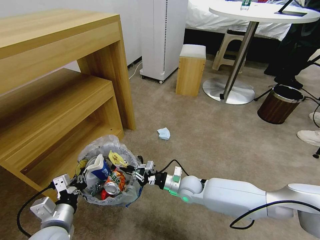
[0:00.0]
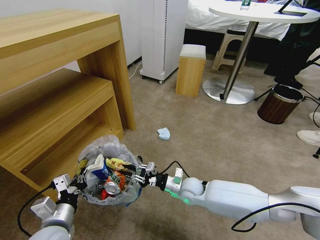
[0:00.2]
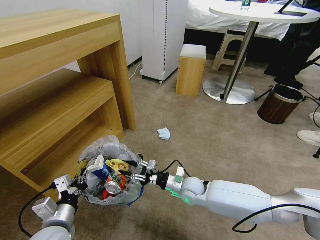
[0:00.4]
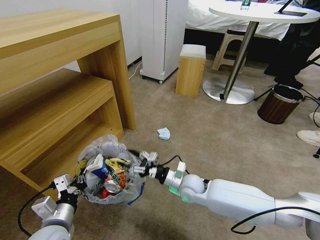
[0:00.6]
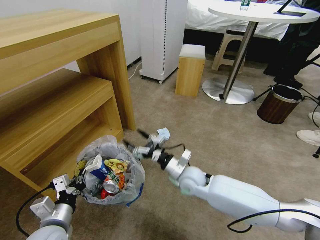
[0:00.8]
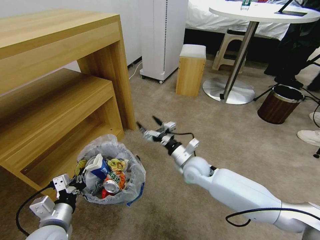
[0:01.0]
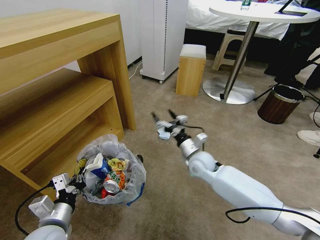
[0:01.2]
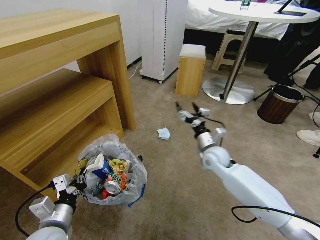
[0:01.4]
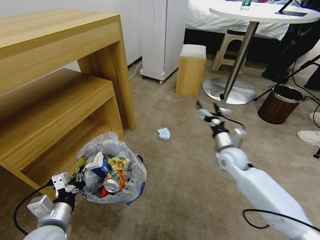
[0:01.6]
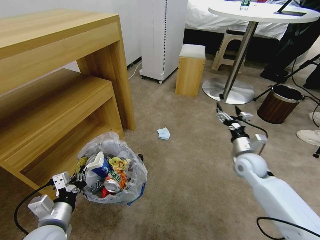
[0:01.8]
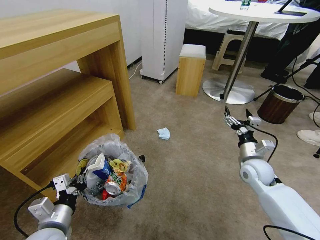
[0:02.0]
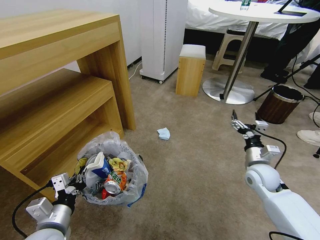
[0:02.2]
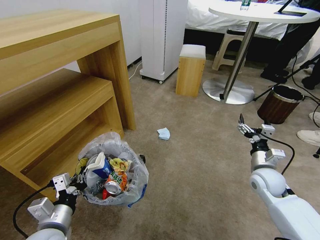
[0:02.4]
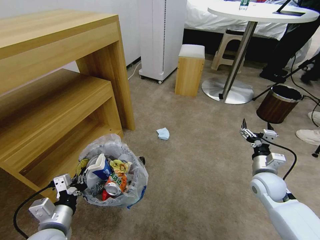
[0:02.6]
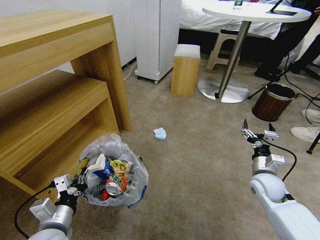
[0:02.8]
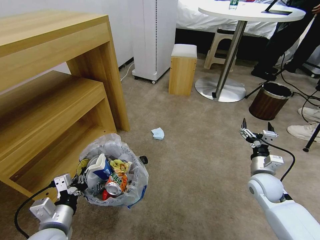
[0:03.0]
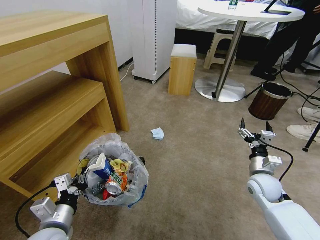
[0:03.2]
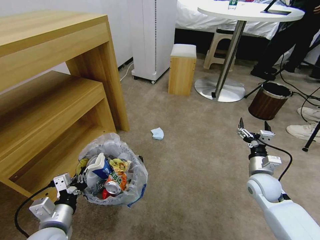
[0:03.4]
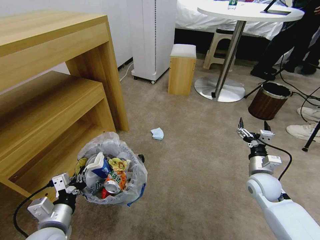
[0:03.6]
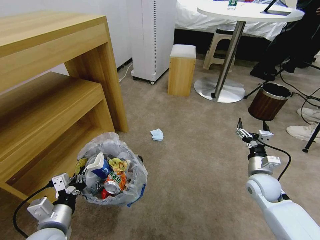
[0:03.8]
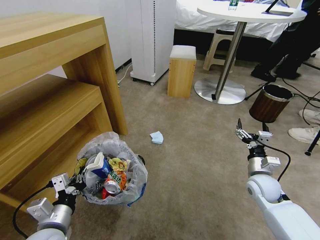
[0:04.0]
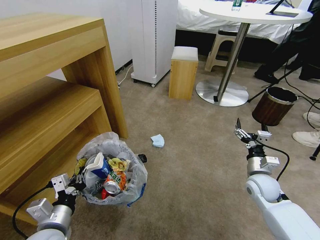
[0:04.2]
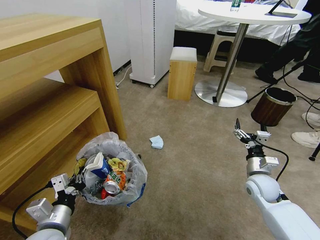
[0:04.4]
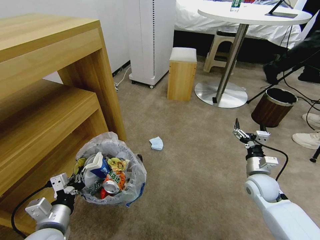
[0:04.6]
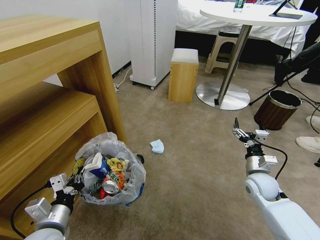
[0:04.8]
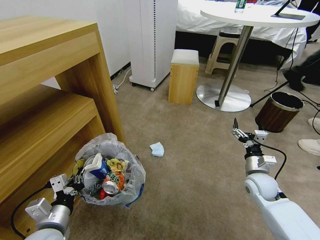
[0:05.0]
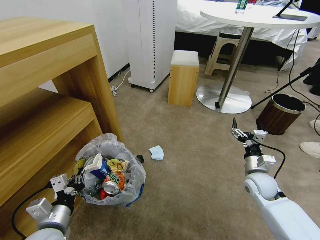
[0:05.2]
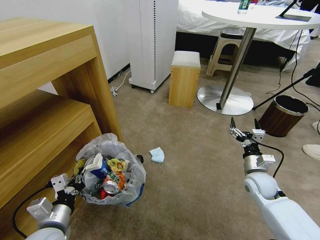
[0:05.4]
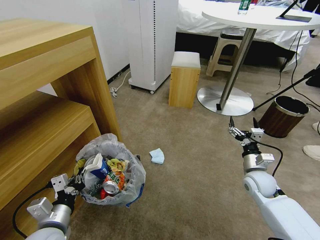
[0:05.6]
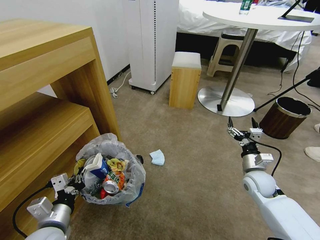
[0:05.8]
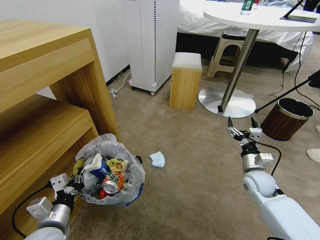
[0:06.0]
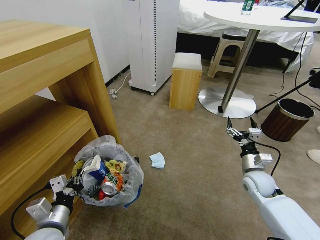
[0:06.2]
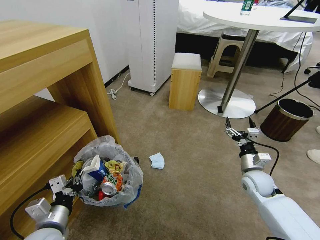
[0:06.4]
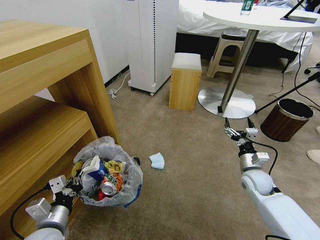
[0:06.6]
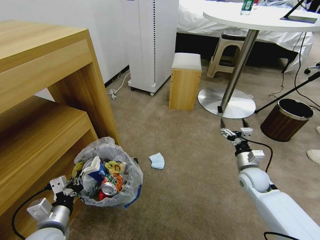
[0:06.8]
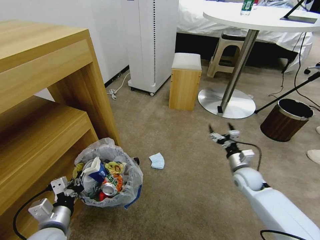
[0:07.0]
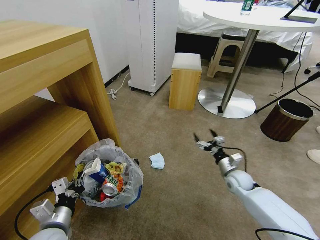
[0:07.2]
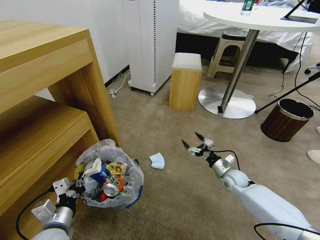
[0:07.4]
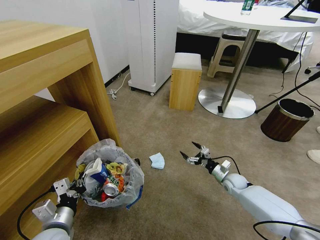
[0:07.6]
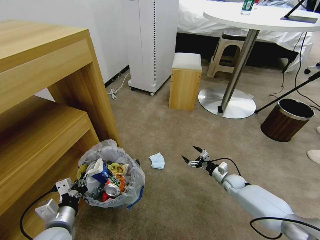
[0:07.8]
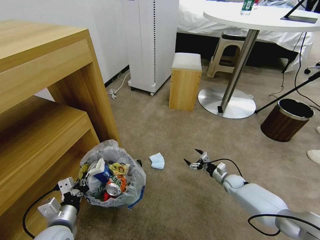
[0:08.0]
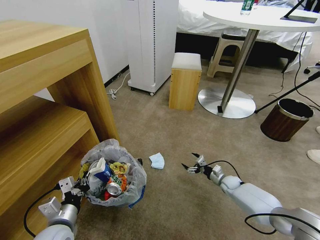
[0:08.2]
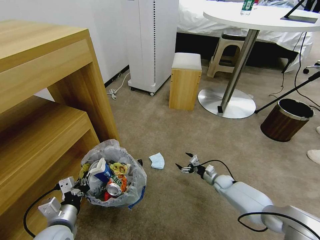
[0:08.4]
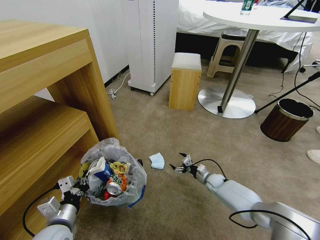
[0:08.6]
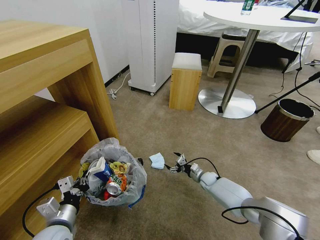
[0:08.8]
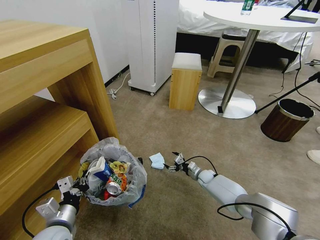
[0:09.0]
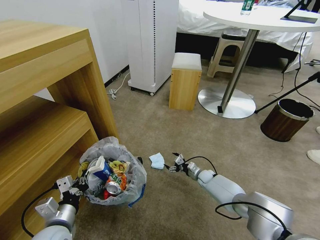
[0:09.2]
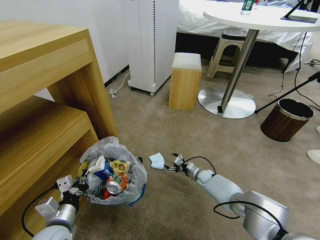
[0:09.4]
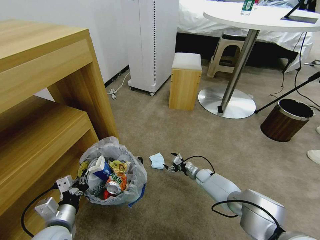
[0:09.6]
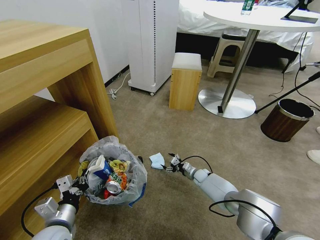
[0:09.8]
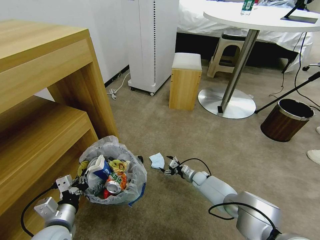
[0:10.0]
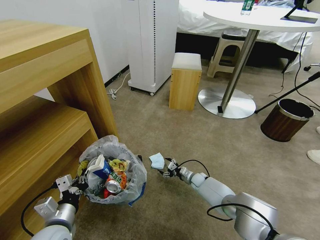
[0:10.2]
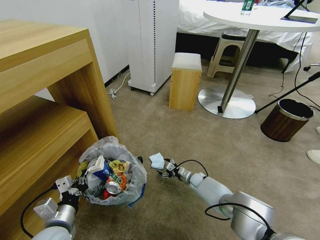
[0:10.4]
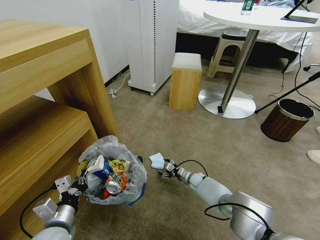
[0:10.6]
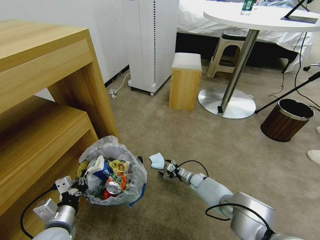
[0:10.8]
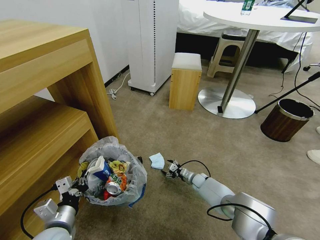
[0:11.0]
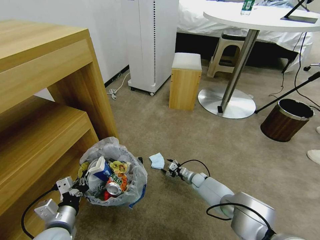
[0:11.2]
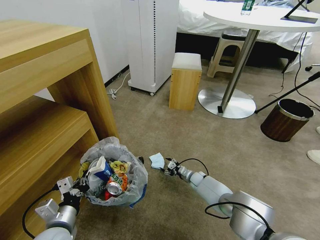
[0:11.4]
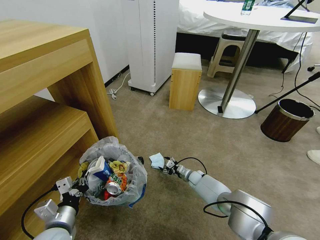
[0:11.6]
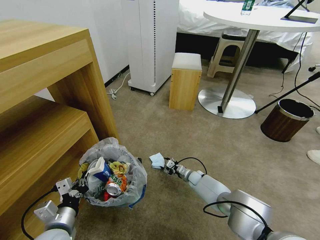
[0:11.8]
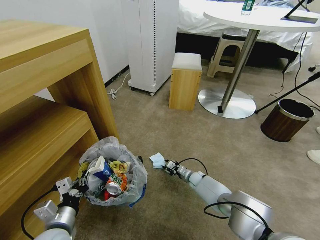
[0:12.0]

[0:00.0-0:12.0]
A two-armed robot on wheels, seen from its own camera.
Task of the whole recording: Pick up the trash bin and place the garbage on the floor into it.
0:00.0 to 0:01.6: The right gripper goes roughly 20 cm to the right and upward, and opens up.
0:01.6 to 0:03.0: The right gripper moves backward and to the right, approximately 10 cm.
0:06.0 to 0:07.6: The right gripper goes about 15 cm downward and forward.
0:07.6 to 0:09.0: The right gripper is displaced to the left, downward and forward by roughly 15 cm.
0:09.0 to 0:10.4: The grippers stay close to where they were, moving slightly.
0:10.4 to 0:12.0: The right gripper closes up.

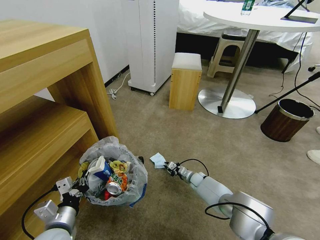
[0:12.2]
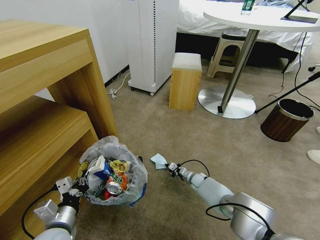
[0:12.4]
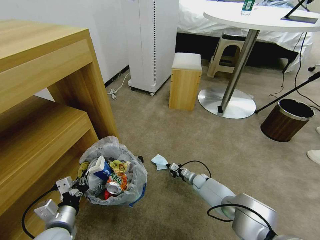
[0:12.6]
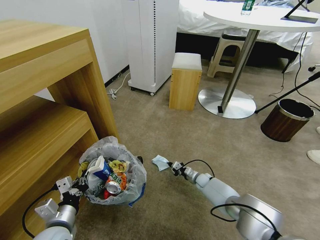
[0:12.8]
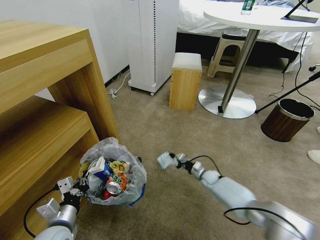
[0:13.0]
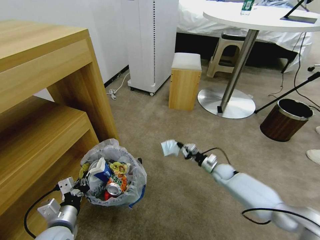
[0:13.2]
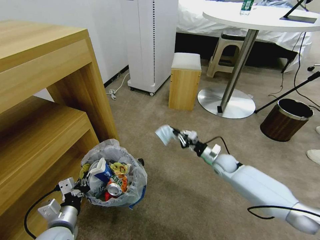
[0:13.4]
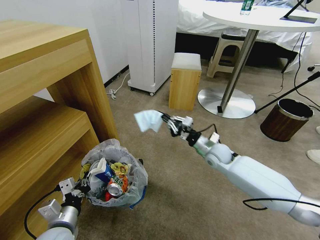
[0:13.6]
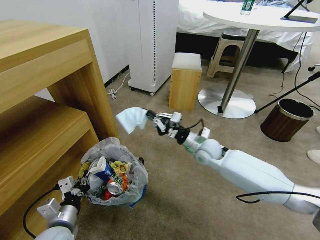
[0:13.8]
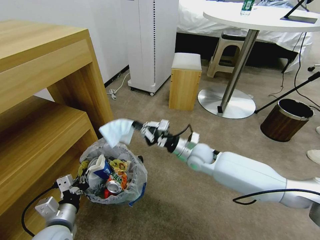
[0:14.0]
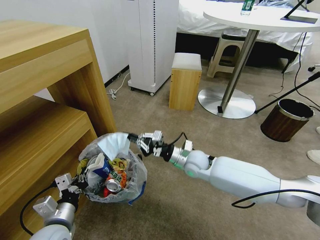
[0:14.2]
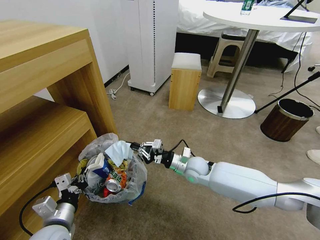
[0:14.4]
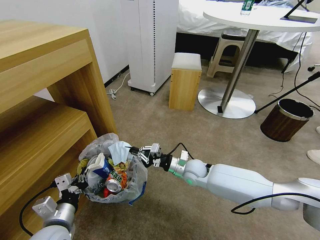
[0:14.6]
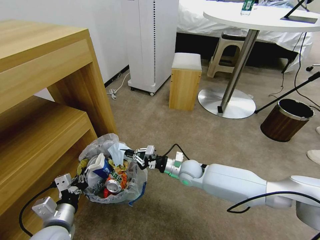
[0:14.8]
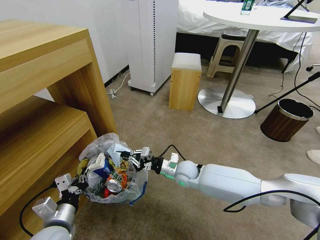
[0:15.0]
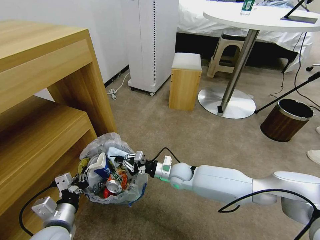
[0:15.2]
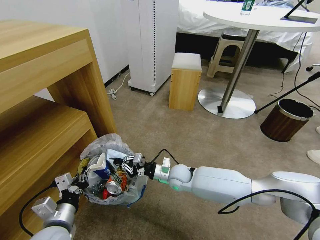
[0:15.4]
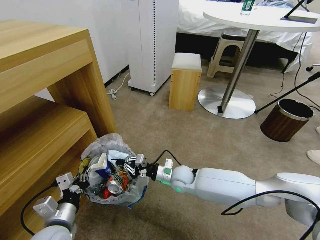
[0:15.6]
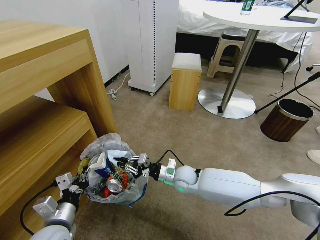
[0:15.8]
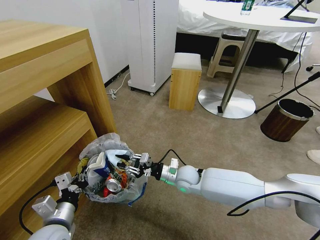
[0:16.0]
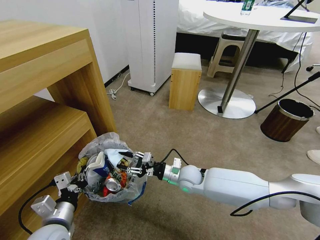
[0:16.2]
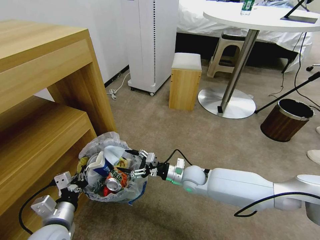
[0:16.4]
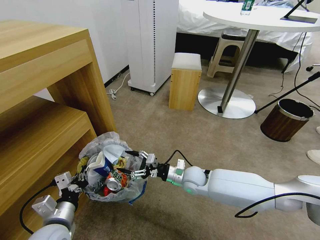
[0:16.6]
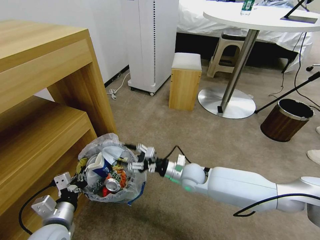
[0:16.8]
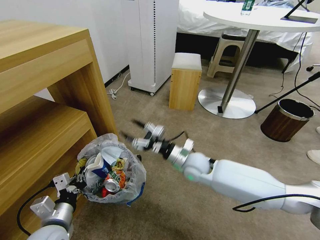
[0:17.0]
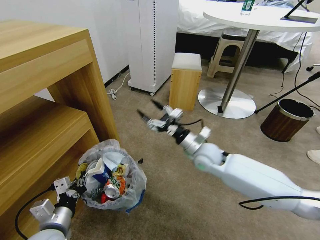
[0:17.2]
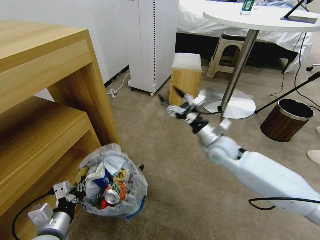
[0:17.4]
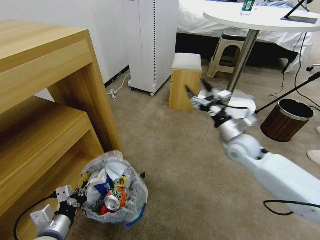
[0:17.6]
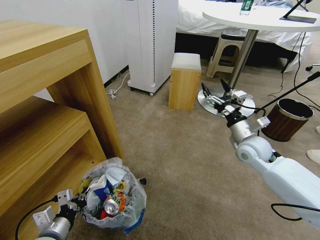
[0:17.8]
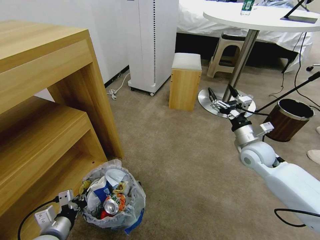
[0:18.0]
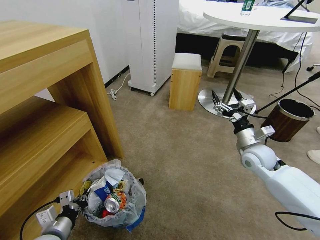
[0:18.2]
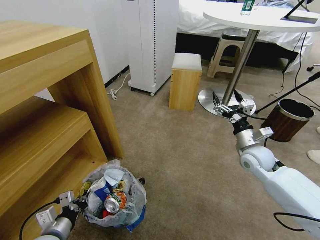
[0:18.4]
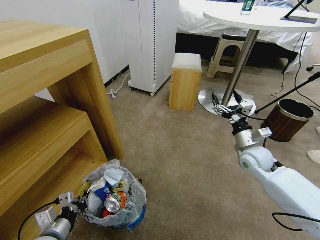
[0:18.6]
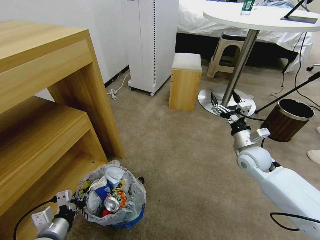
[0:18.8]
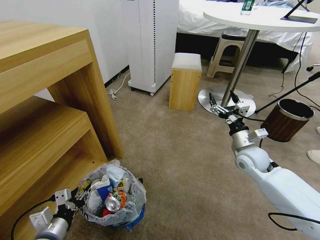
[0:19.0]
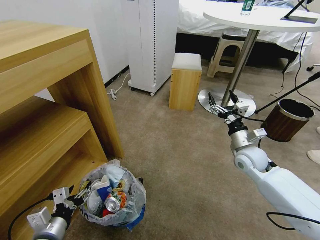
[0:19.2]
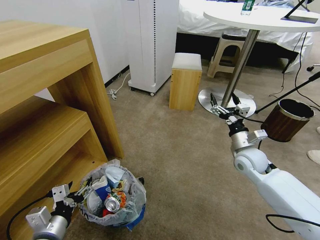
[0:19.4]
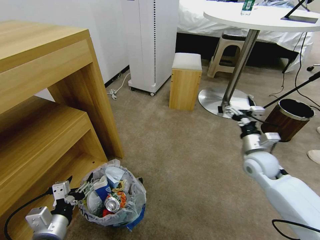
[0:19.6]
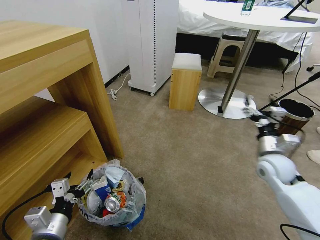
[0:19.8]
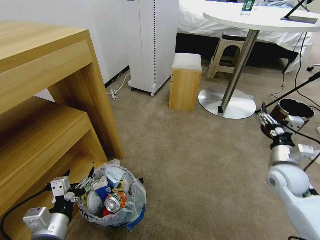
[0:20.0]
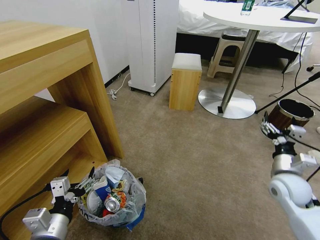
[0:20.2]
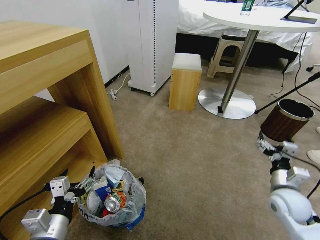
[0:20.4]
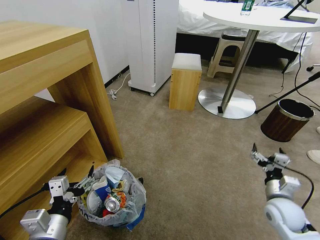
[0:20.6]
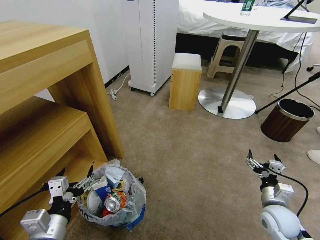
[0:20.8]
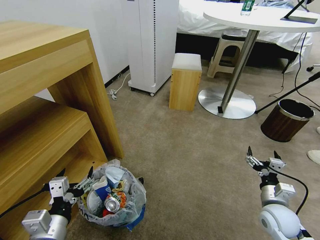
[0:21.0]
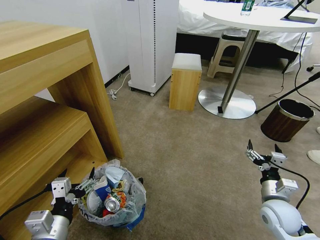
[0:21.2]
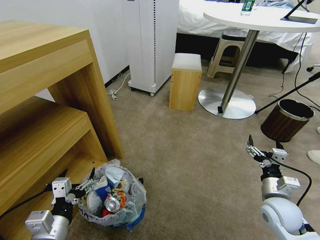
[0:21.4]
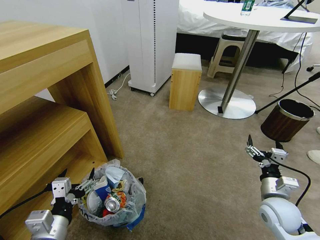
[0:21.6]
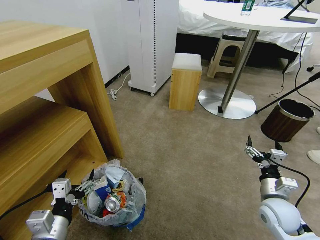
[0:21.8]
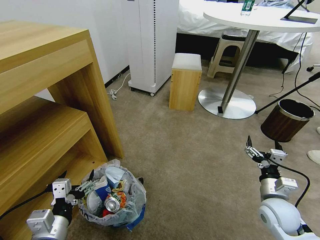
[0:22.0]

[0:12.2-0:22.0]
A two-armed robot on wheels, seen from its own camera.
Task of the whole recording: Pick up the trash bin and place the garbage on the floor into it.
0:12.2 to 0:13.6: The right gripper is displaced upward by approximately 25 cm.
0:13.6 to 0:15.0: The right gripper is displaced to the left and downward by about 15 cm.
0:15.0 to 0:16.4: The right gripper opens.
0:16.4 to 0:17.8: The right gripper travels to the right and upward by about 25 cm.
0:17.8 to 0:19.2: The left gripper opens.
0:19.2 to 0:20.6: The left gripper travels upward by about 5 cm. The right gripper travels backward, downward and to the right by about 20 cm.
0:20.6 to 0:22.0: There are only small adjustments of the grippers.
